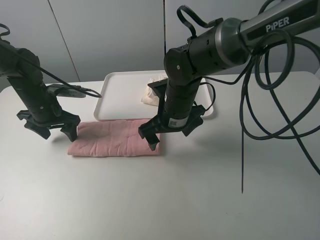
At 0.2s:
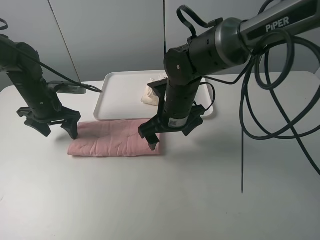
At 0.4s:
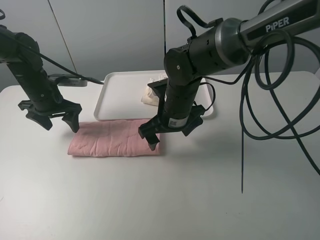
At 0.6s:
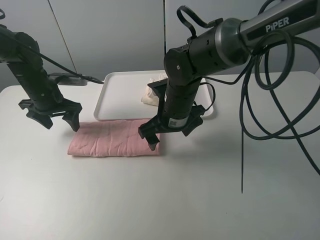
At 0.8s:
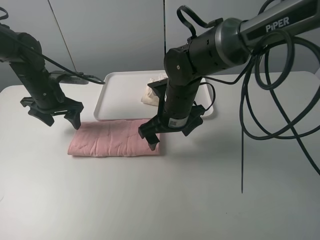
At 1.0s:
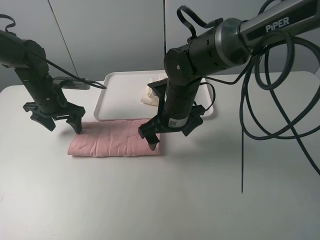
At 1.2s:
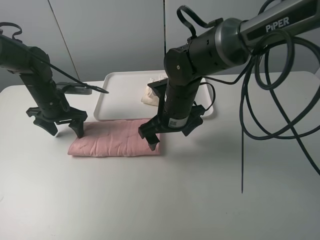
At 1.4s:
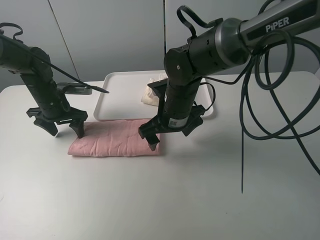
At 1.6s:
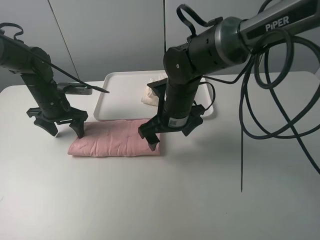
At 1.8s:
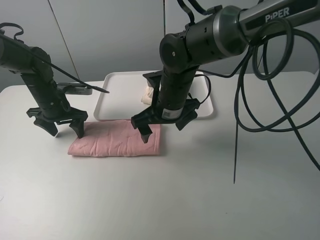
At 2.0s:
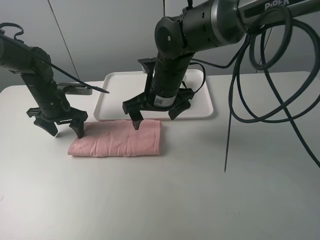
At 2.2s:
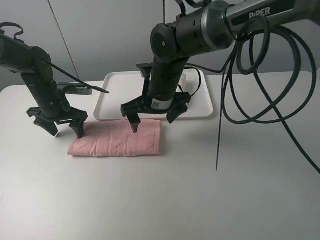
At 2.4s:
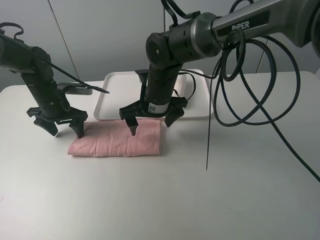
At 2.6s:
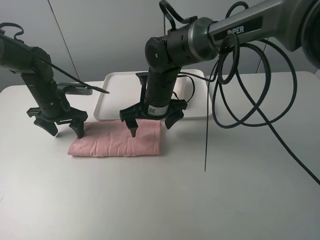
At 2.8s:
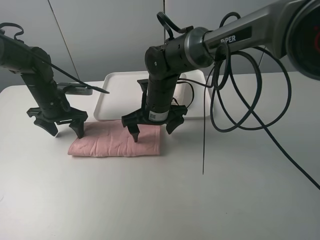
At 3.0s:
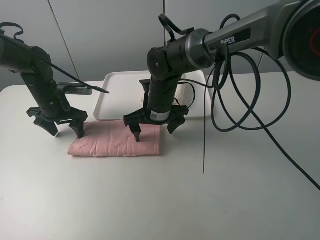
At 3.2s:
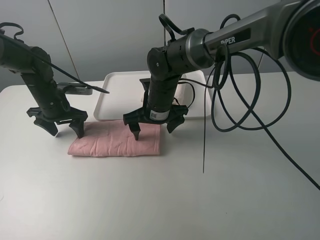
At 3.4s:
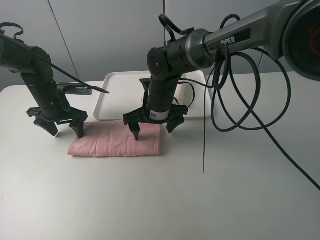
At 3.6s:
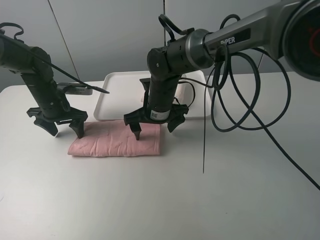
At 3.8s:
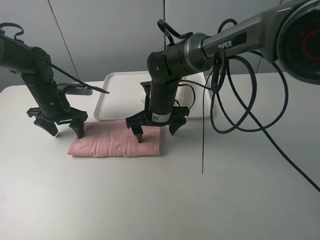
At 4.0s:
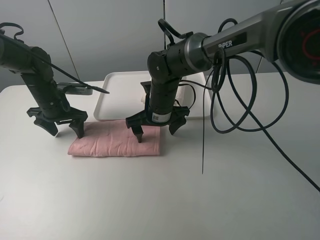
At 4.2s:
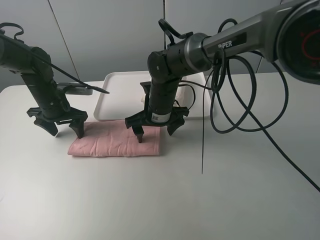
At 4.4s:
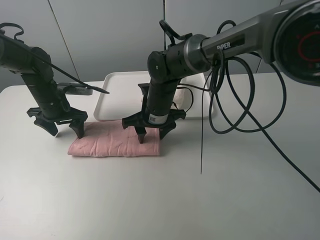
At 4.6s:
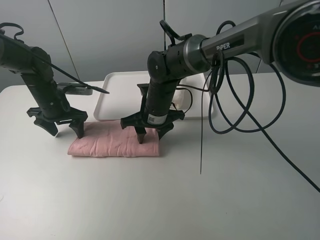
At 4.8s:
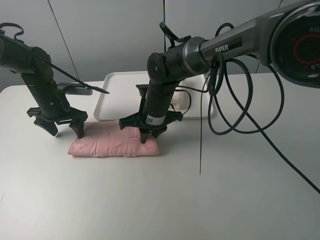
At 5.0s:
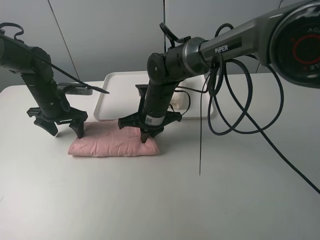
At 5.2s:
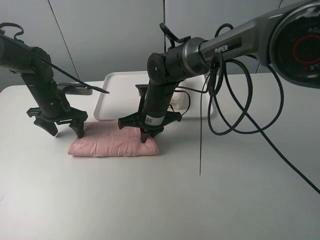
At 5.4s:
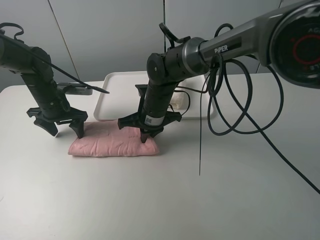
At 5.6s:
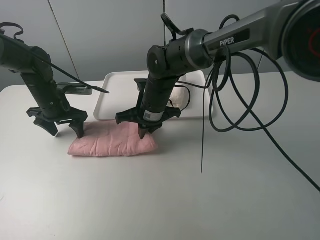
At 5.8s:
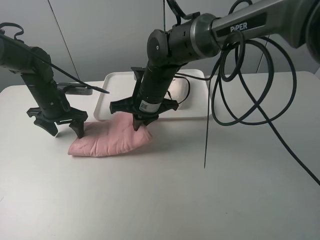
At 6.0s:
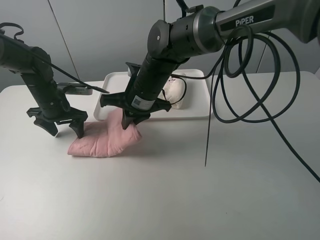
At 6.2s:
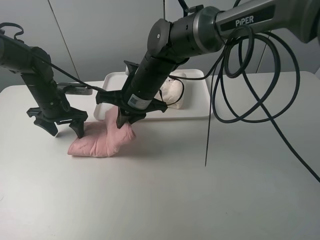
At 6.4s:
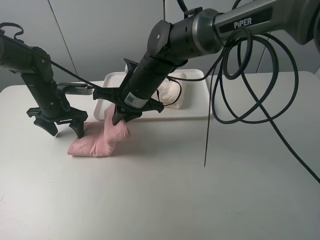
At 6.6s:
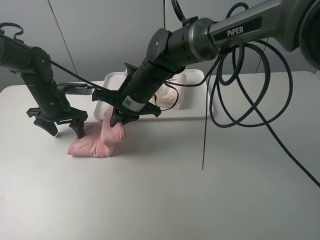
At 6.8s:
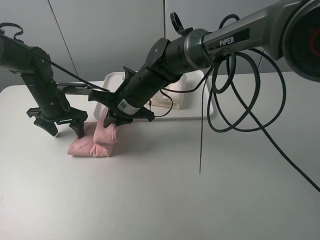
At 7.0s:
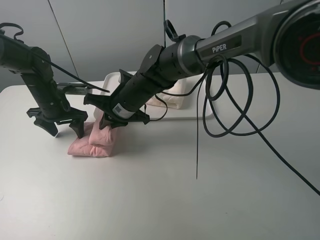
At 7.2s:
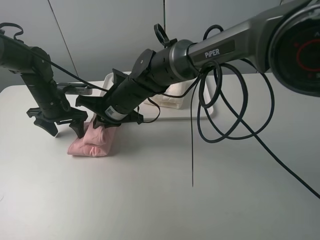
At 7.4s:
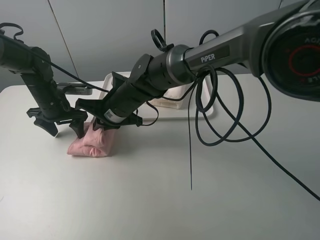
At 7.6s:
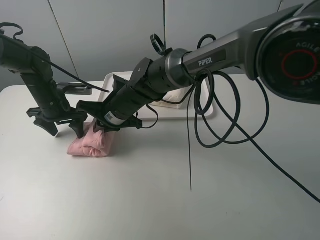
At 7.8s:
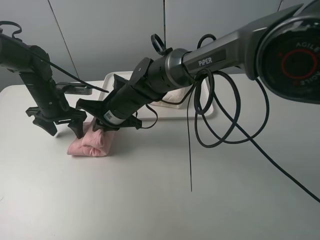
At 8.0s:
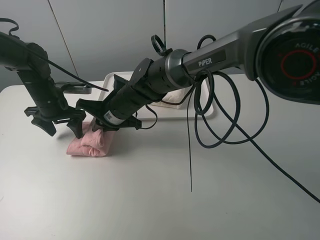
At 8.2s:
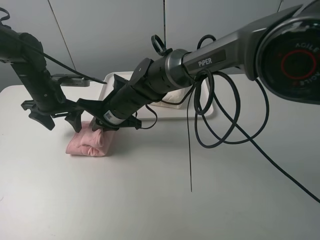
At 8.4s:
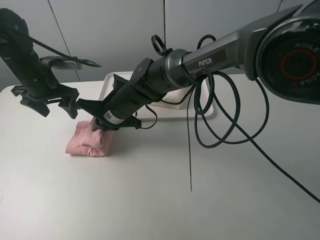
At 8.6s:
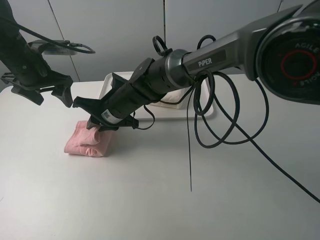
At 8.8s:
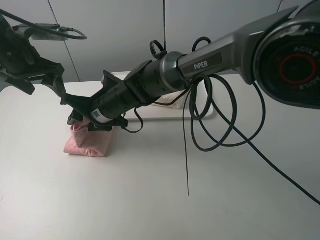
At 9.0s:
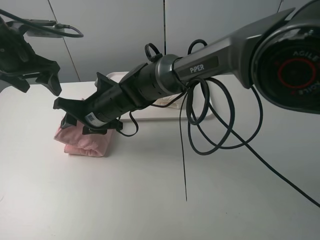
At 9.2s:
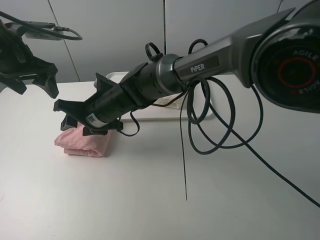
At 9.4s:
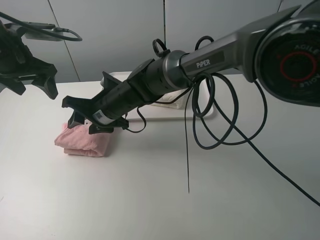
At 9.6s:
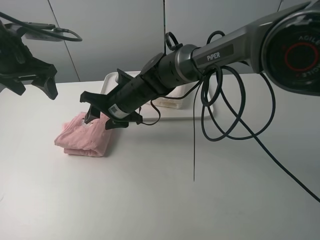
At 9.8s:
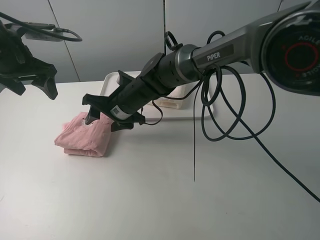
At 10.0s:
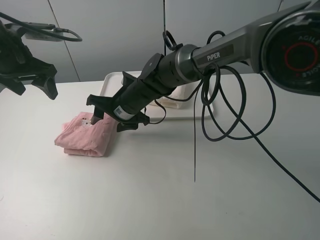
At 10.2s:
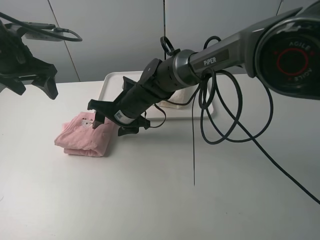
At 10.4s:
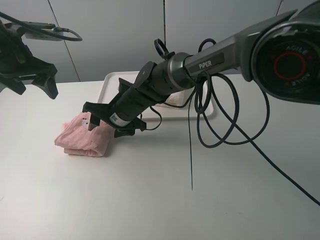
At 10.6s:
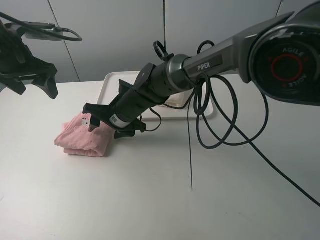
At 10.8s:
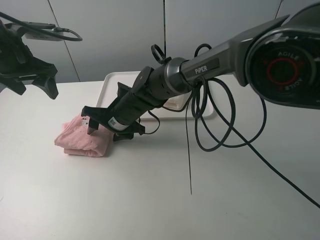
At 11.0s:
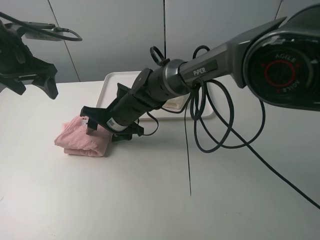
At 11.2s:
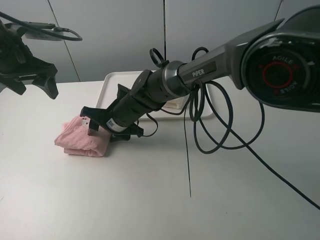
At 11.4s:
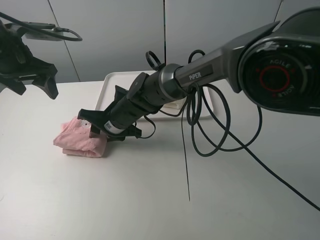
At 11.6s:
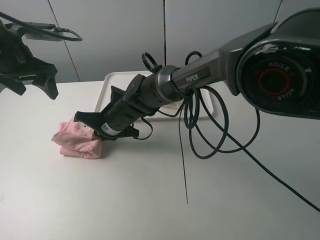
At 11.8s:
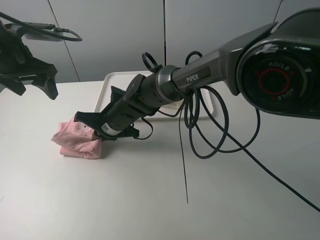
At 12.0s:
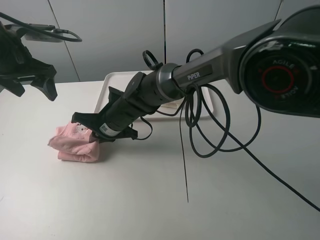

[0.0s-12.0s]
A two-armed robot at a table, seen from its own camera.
Task of the whole recording: fold one of the towels by two grippers and place it on the tray,then fold another towel by two grippers and place it on the folded towel.
Step, 1.6s to 5.0s: Grasp the pink towel with the right gripper.
Step, 5.2s to 9.2s: Fold the pink towel from right to left with right gripper.
Step, 9.4s to 11.6s: Grasp the pink towel with the right gripper.
0.0s to 1.6s: The grippers stay close to where they were, moving slightly.
1.6s to 3.0s: The right gripper ends up some 5 cm from where it was.
3.0s to 4.4s: The right gripper closes up.
4.4s to 6.0s: The right gripper is displaced upward by some 5 cm, and closes its fingers.
6.0s to 7.6s: The right gripper is displaced to the left by approximately 5 cm.
7.6s to 9.0s: The left gripper shifts approximately 15 cm upward. The right gripper opens.
9.0s to 10.4s: The right gripper ends up about 5 cm from where it was.
10.4s to 12.0s: The right gripper closes its fingers.

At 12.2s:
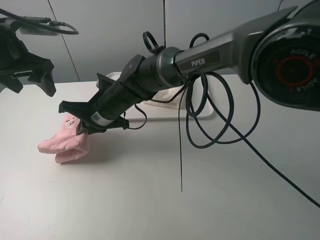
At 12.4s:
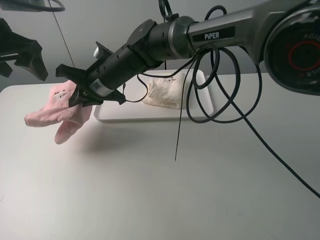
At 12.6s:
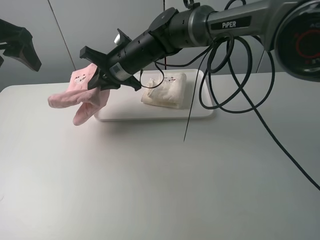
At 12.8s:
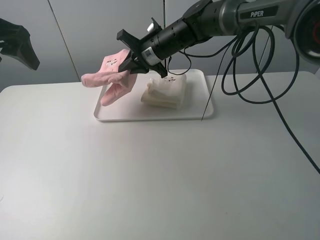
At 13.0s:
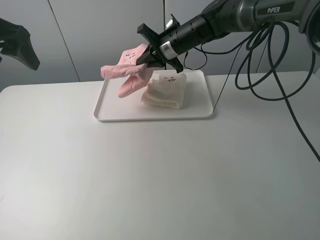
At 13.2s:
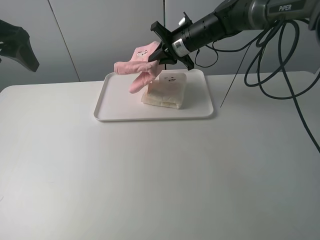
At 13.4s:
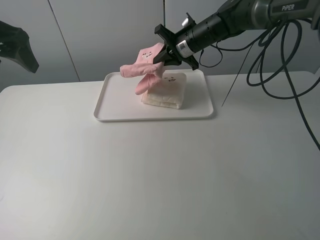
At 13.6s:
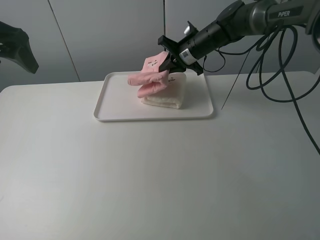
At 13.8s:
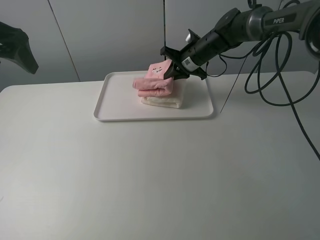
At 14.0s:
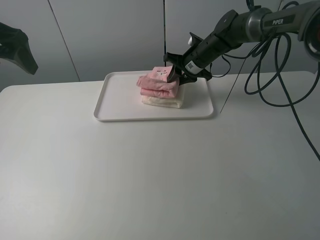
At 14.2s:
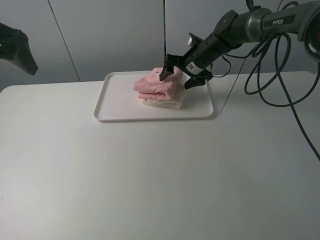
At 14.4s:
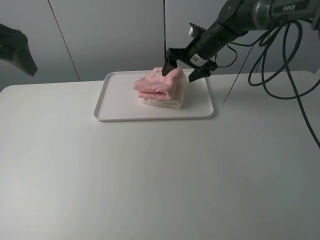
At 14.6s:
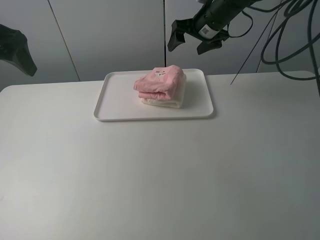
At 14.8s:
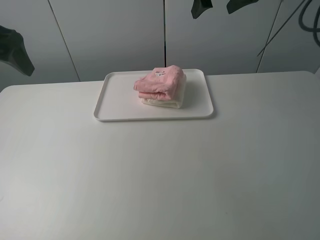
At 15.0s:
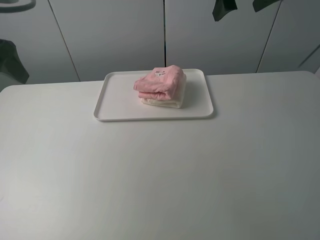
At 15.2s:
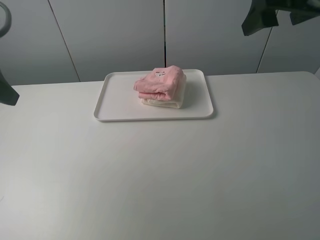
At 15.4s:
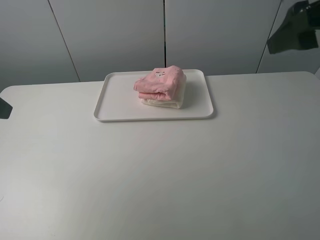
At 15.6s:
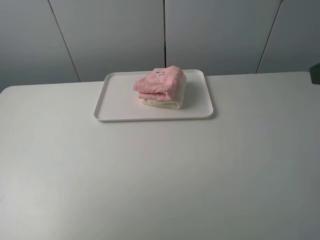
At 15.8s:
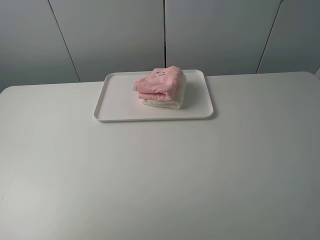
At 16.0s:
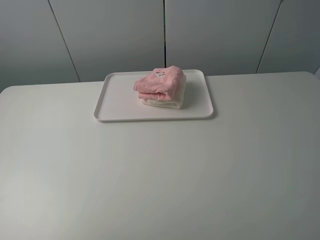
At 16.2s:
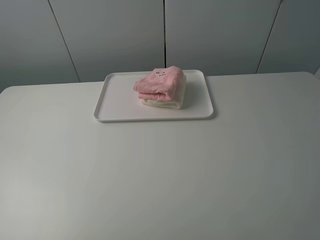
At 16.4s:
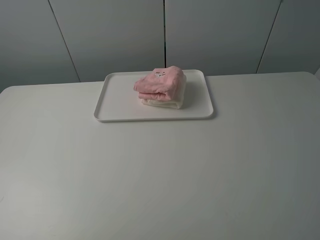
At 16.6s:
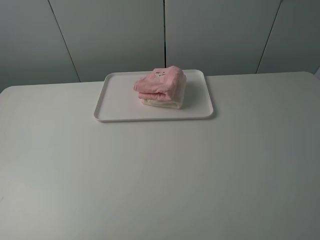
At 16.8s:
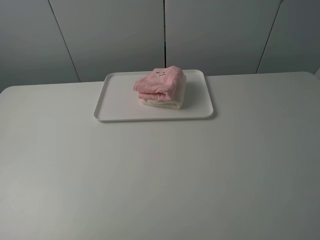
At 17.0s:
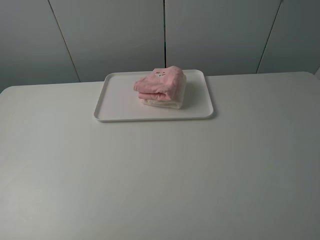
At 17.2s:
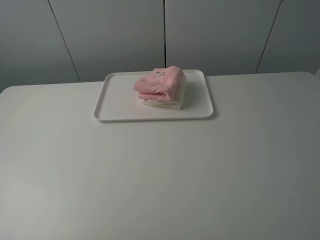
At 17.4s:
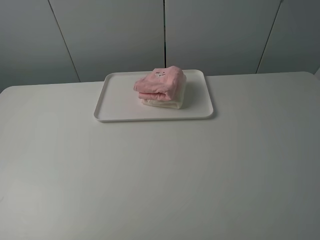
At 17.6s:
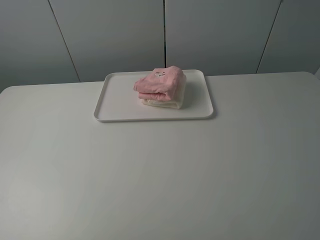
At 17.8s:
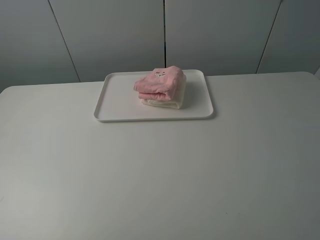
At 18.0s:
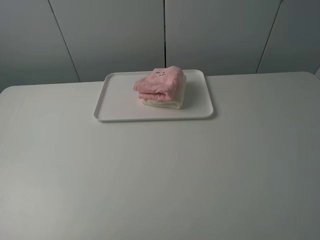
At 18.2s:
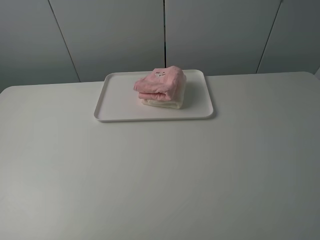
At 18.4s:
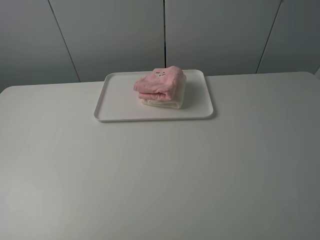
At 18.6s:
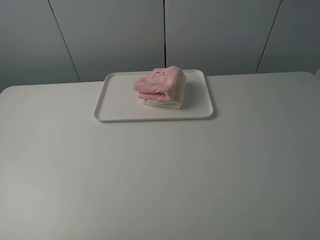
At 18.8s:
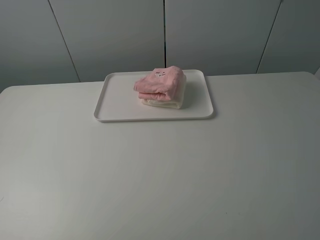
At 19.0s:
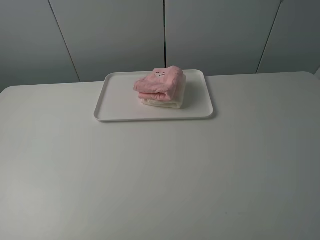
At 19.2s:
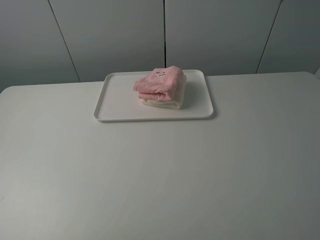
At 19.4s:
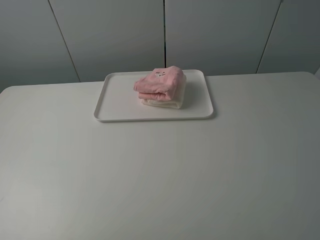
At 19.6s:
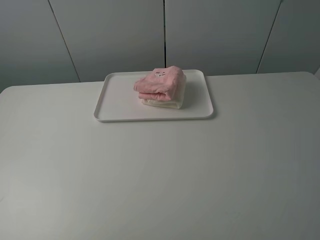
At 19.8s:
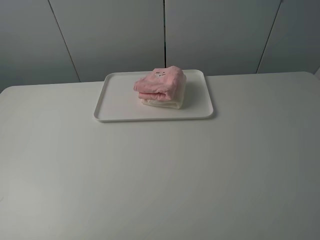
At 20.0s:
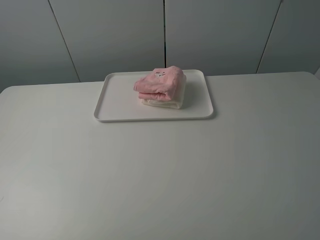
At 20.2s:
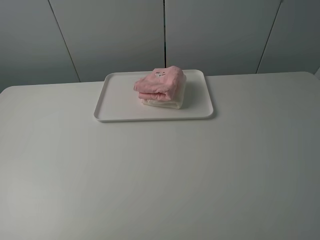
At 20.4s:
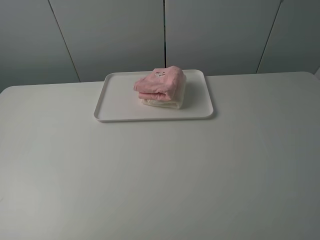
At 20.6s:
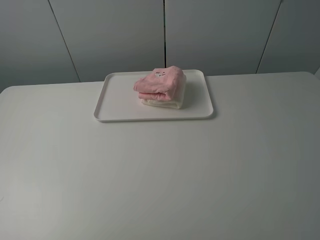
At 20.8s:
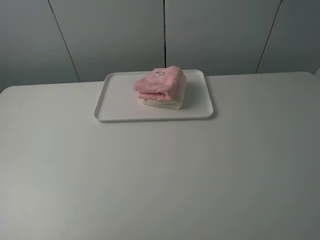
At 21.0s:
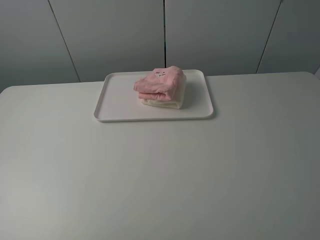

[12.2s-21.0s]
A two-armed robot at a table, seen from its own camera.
Task of the whole recording: fold one of the towels by two grippers and place it on the tray,then fold another towel by two grippers and place it on the folded towel.
Step, 12.2s to 14.6s: Place the pink towel on the white towel with the right gripper.
12.2s to 13.6s: The right gripper moves to the right and forward, roughly 25 cm, while the left gripper heads upward, covering some 5 cm.
13.6s to 15.2s: The left gripper heads backward, covering approximately 10 cm, while the right gripper heads backward, upward and to the right, covering some 30 cm, and opens its fingers.
15.2s to 16.6s: The grippers both shift backward by roughly 25 cm.
18.0s to 21.0s: Both grippers stay put.

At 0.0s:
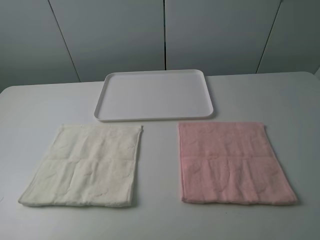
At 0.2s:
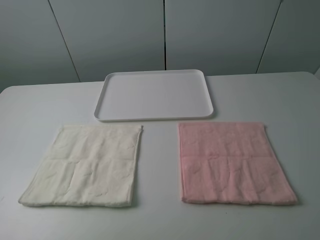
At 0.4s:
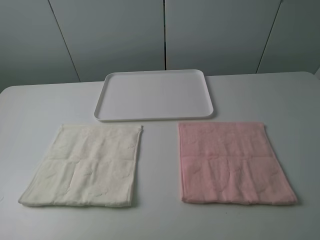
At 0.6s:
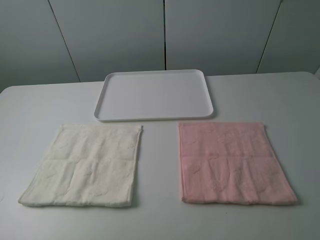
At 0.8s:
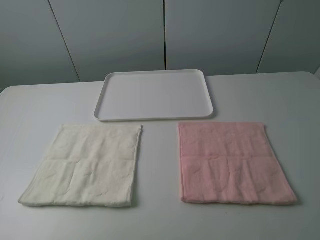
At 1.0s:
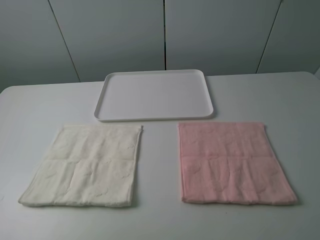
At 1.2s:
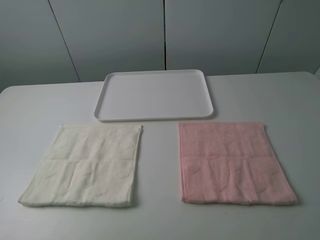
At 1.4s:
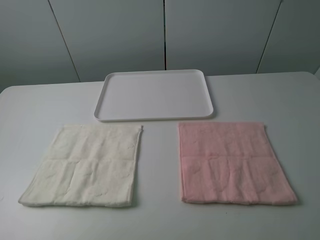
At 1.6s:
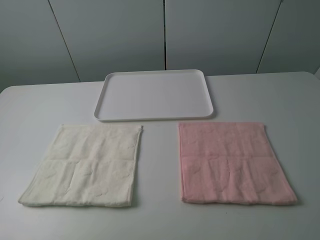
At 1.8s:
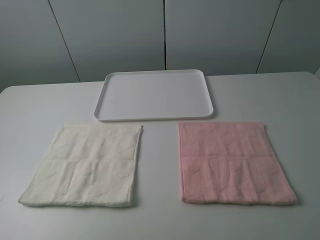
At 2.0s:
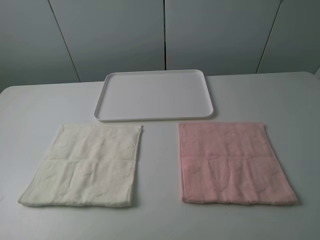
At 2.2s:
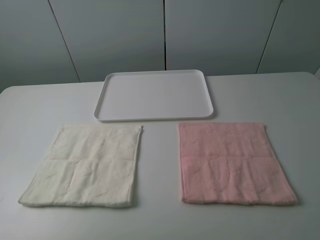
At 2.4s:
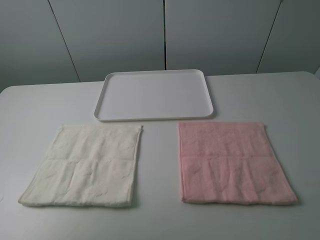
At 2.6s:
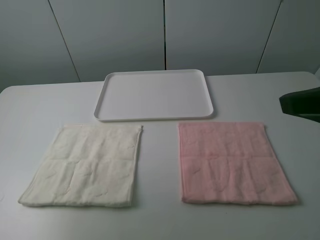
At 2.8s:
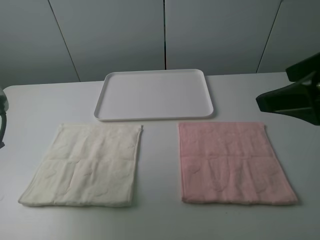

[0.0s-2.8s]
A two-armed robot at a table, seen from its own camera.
Task of the whole recording: fold one of the towels by two grippers and place it on the tray,then fold another towel by two grippers and place it on the folded towel.
0.0s to 1.4s: Neither gripper changes place.
1.4s to 2.8s: The two grippers go some 20 cm forward.
